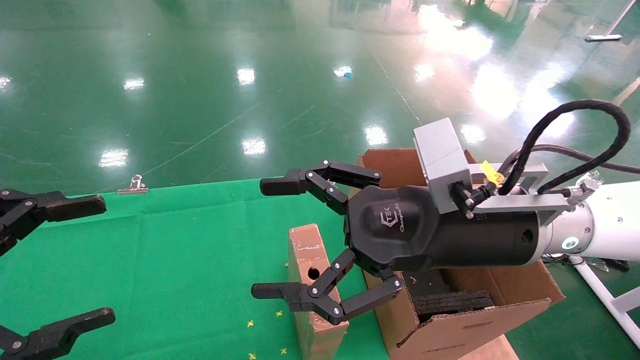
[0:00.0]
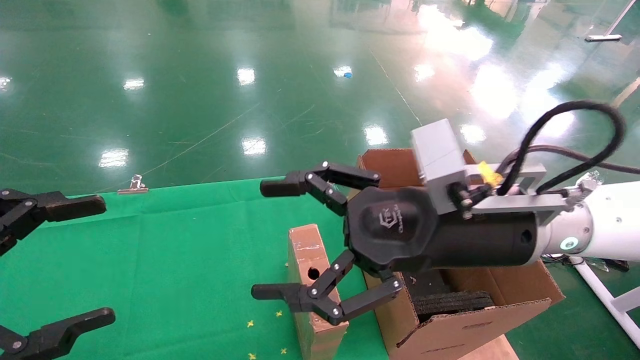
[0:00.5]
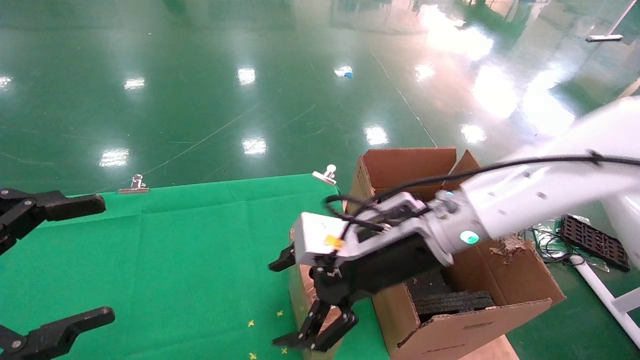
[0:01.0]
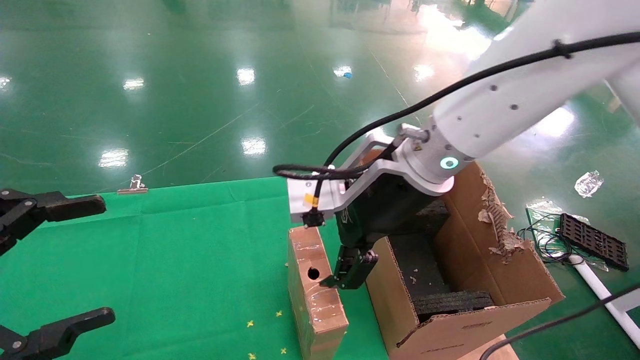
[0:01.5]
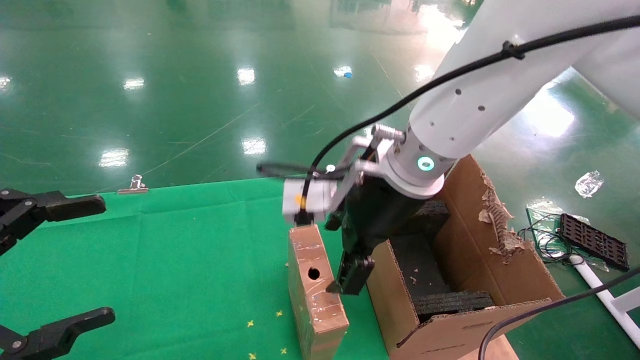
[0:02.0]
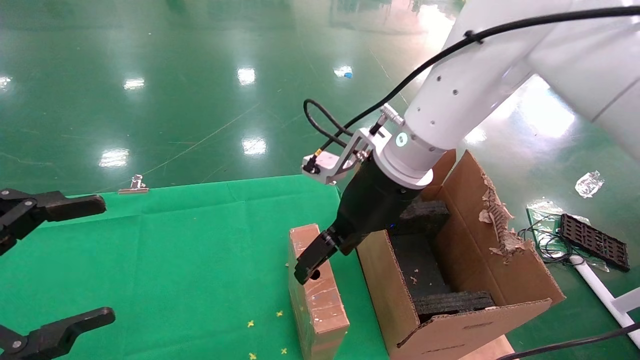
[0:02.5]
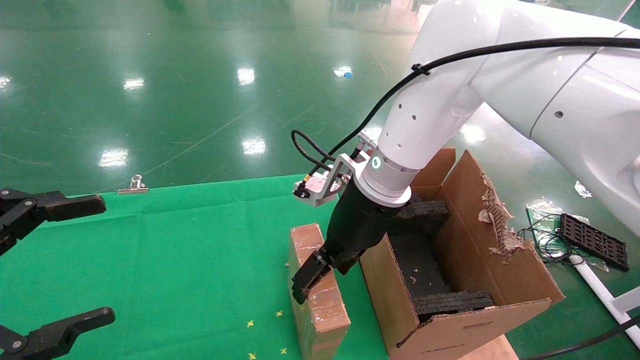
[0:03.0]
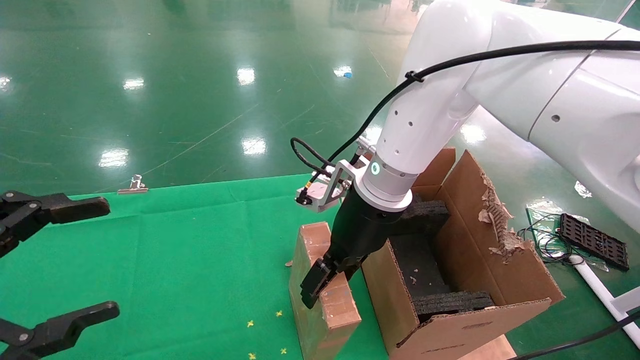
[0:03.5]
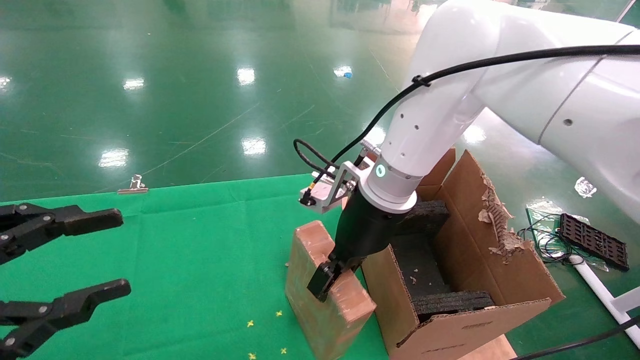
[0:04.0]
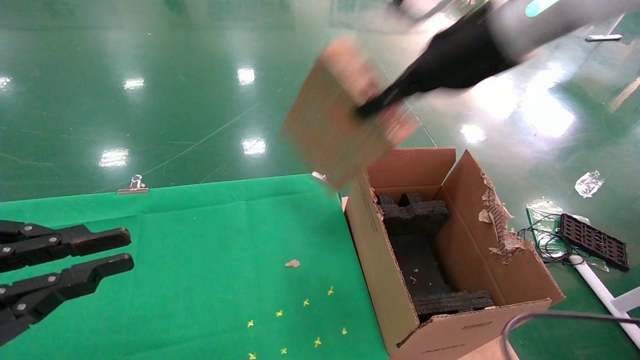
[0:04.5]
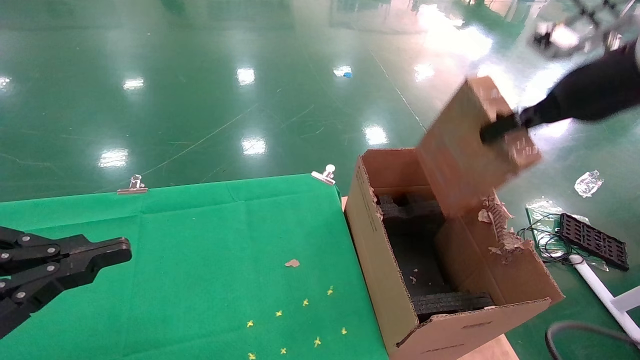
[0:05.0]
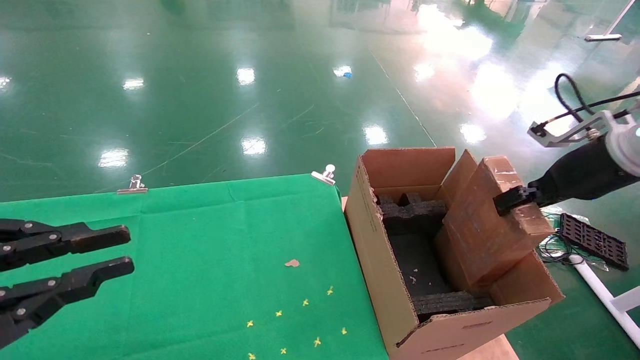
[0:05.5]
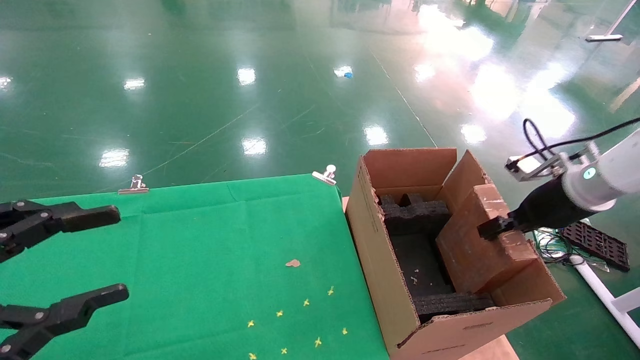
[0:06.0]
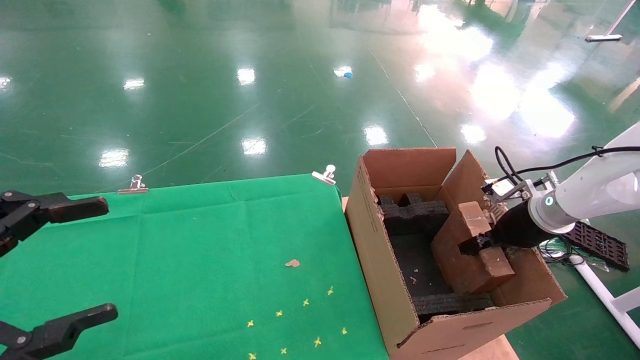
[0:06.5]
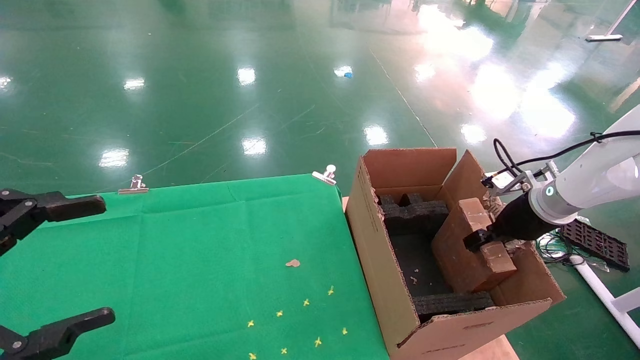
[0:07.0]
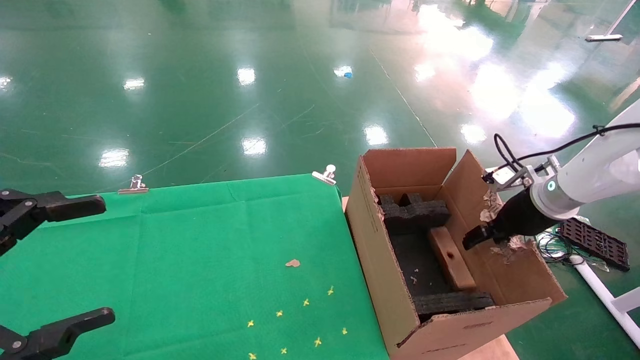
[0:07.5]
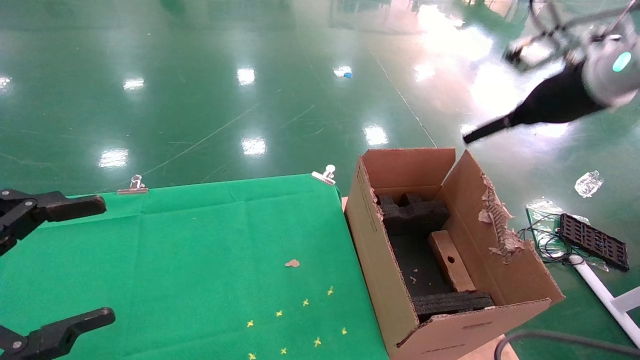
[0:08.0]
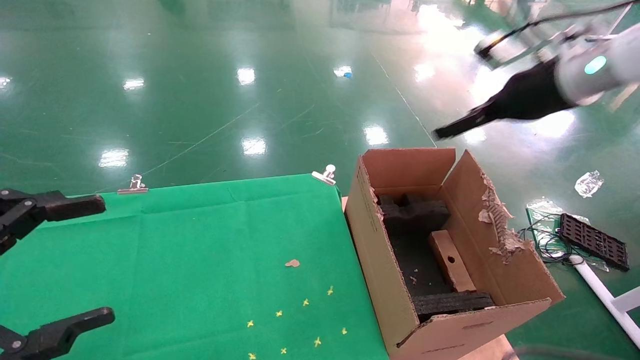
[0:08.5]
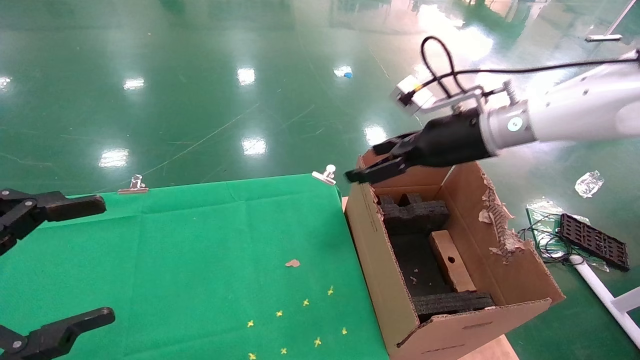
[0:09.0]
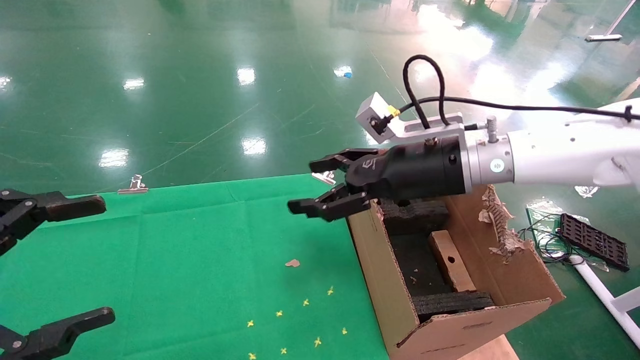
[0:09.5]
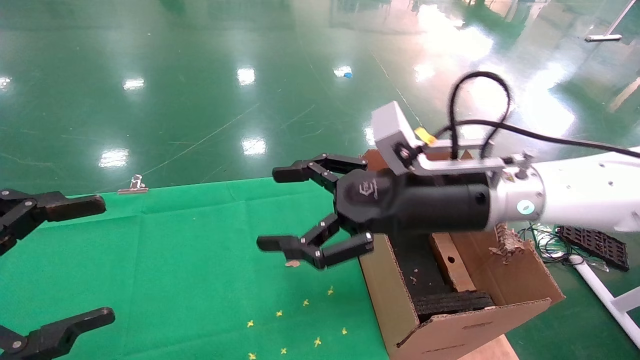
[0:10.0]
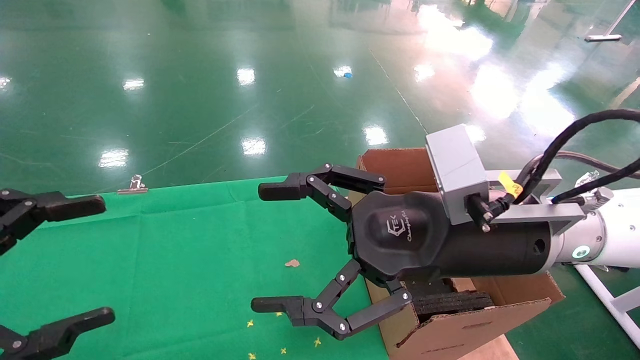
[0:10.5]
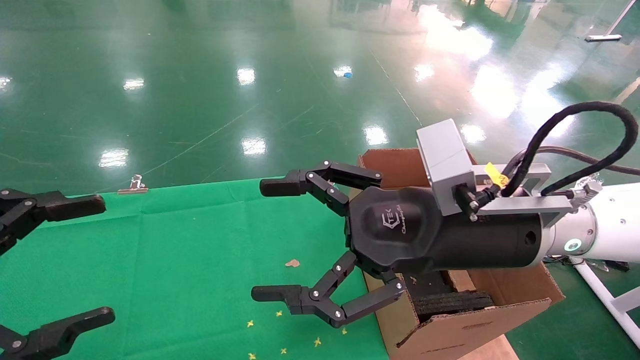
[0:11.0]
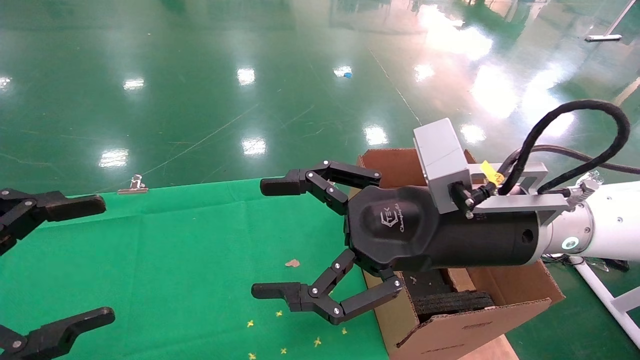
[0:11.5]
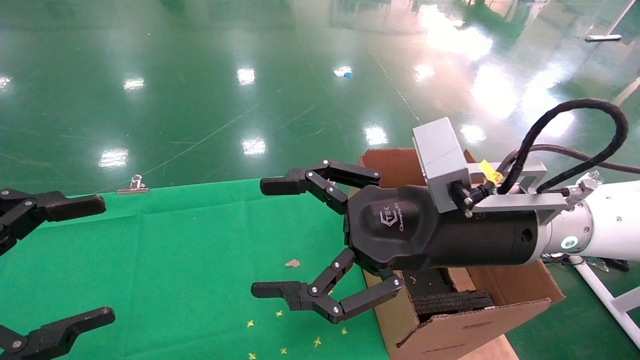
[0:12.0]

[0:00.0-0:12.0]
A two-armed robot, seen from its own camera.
Task of the whole recording: using a robotic arm to pick up a cardboard box and palace it the carton.
Step, 0:01.0 to 0:04.0: Pick up the mouse and the power cord paper box.
Step, 0:04.5 to 0:07.5: Place the mouse and the power cord paper box into the container.
0:00.0 to 0:02.0: The right gripper travels forward and to the left by approximately 10 cm.
0:02.0 to 0:04.0: The left gripper closes its fingers. Meanwhile the right gripper travels forward by approximately 5 cm, and closes its fingers.
0:04.0 to 0:06.0: The right gripper heads to the right, covering roughly 30 cm, and closes, while the left gripper closes, then reopens.
0:06.0 to 0:08.0: The left gripper opens. The right gripper goes about 15 cm upward, and opens up.
0:08.0 to 0:10.0: The right gripper heads to the left and downward, covering roughly 25 cm.
0:10.0 to 0:12.0: The right gripper heads backward, covering roughly 5 cm.

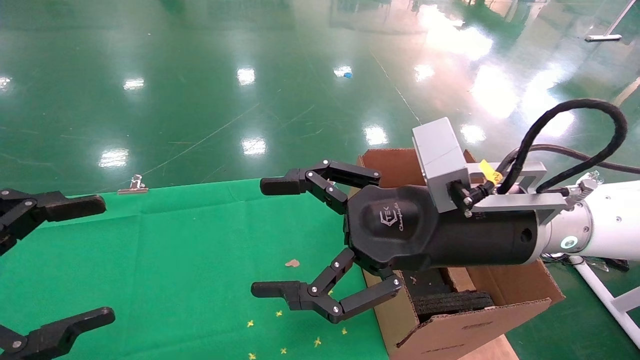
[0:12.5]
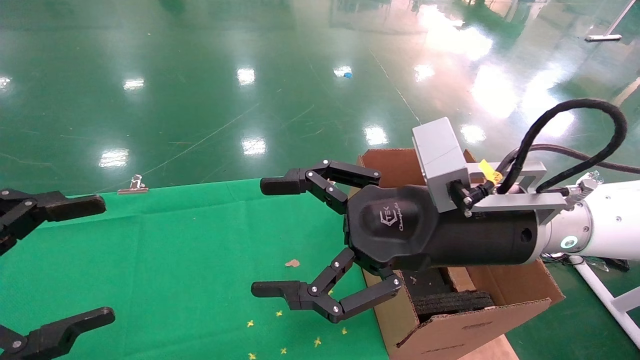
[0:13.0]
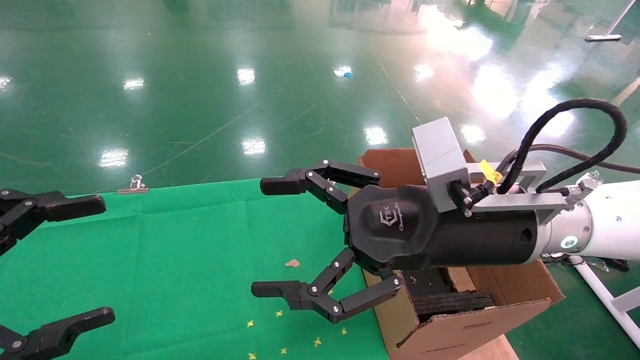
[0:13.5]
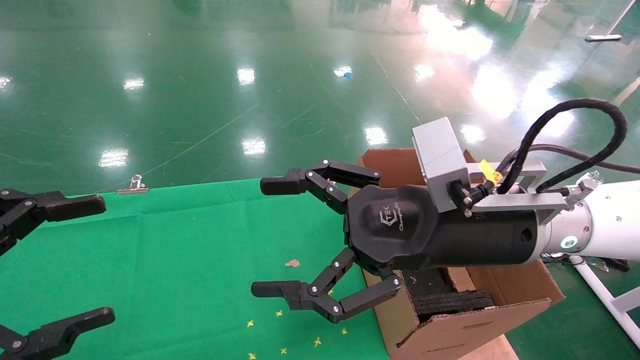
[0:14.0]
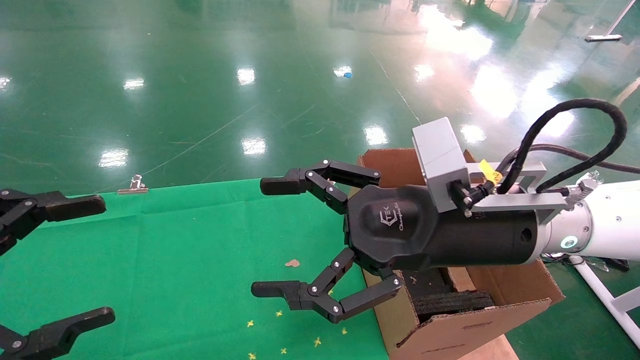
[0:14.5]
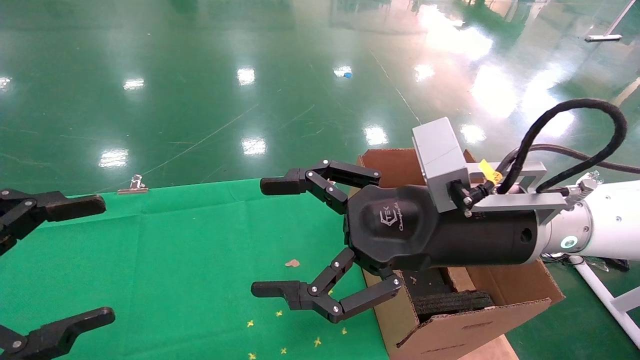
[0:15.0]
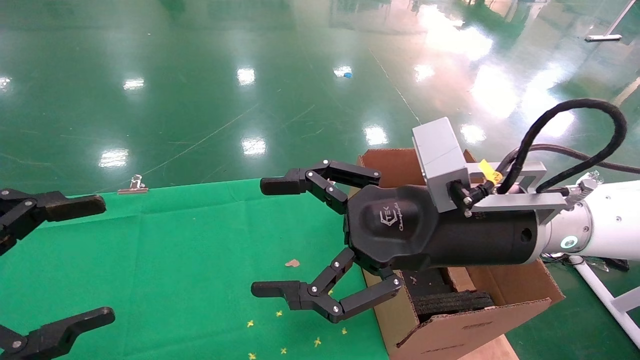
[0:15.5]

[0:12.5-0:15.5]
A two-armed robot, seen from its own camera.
Task of the whole recording: using a robotic arm to pick up a cardboard box and palace it the carton.
0:12.5 to 0:15.5: The two grippers keep their place.
